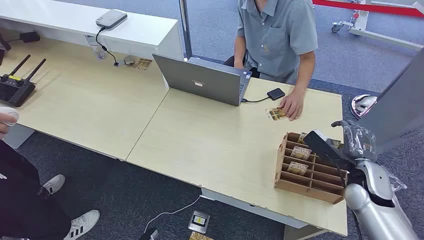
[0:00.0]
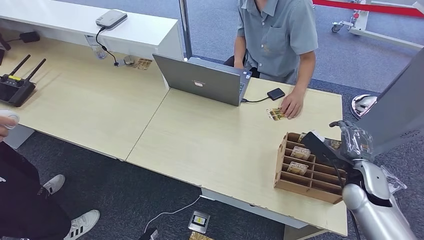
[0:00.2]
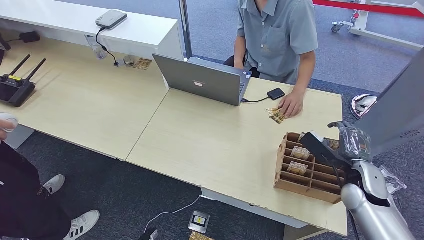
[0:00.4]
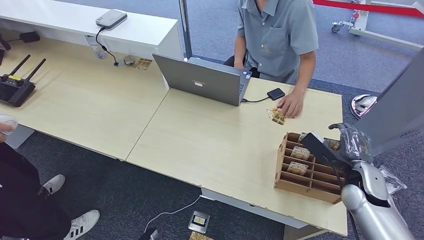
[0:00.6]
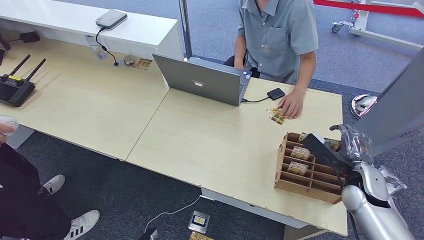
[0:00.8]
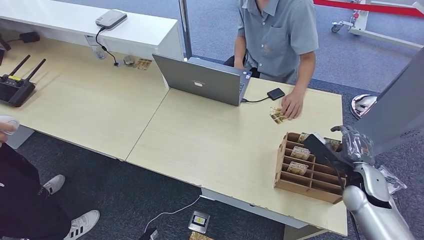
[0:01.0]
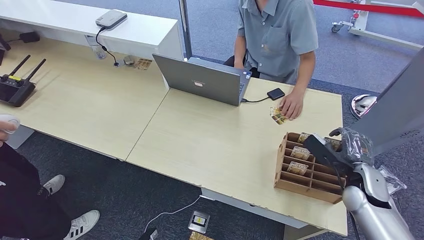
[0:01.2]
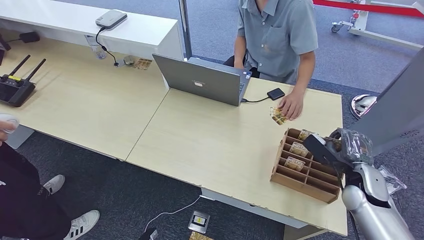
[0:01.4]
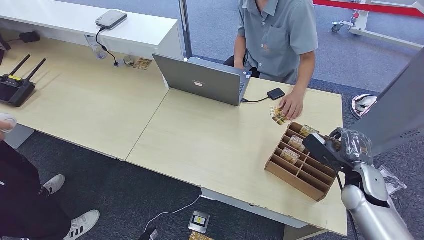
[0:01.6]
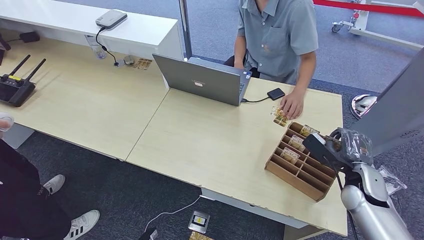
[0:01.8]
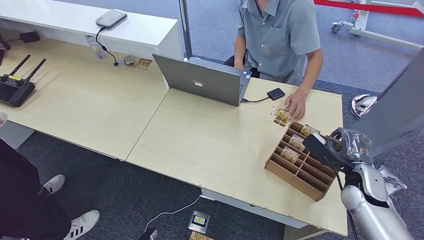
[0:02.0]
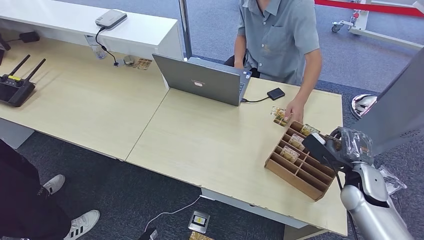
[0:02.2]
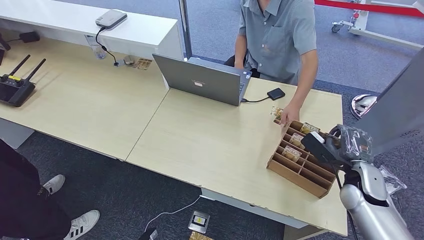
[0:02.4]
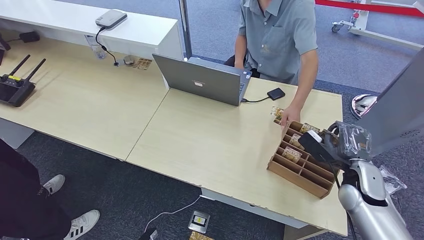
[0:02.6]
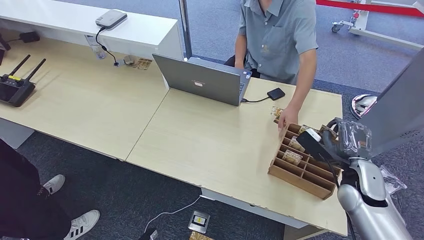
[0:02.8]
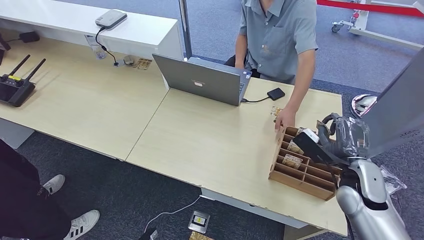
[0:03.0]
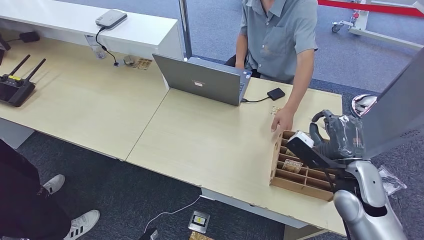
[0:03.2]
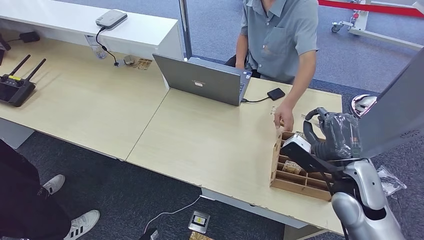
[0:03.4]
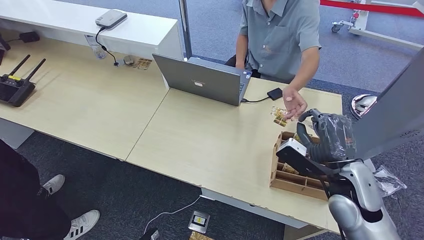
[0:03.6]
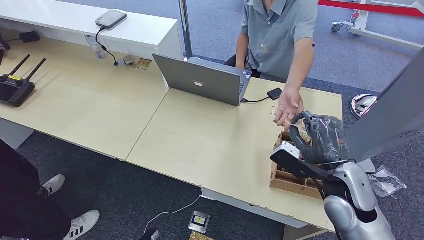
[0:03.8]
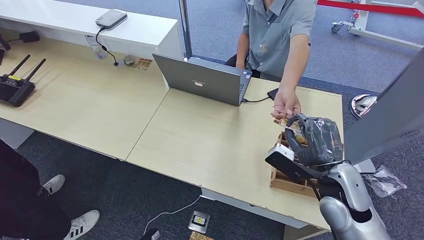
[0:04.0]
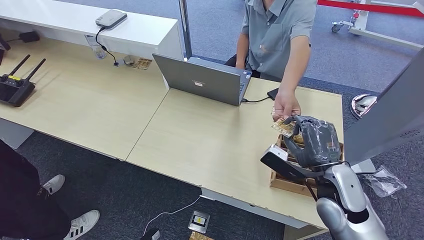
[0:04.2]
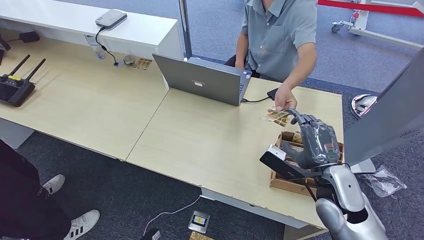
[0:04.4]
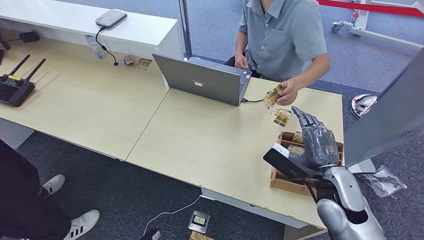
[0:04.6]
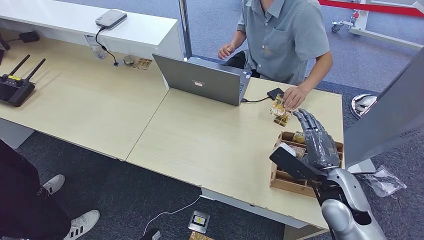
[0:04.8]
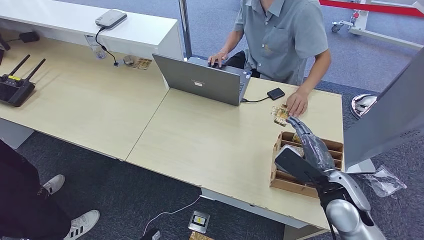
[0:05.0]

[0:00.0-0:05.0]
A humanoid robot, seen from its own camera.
Step, 0:00.0 to 0:03.0: Pick up the key card from the card box.
Step, 0:03.2 to 0:05.0: Hand the key card to the target.
0:01.6 to 0:03.4: The right hand heads to the left and upward, covering about 10 cm.
